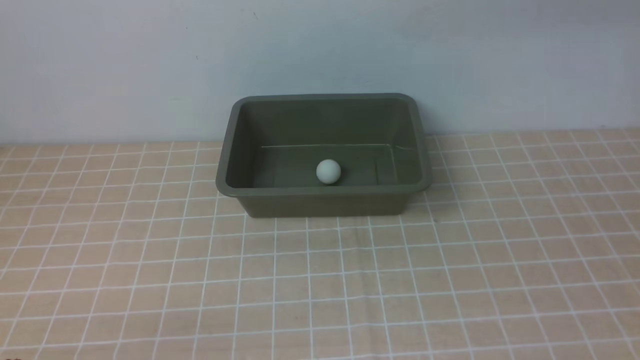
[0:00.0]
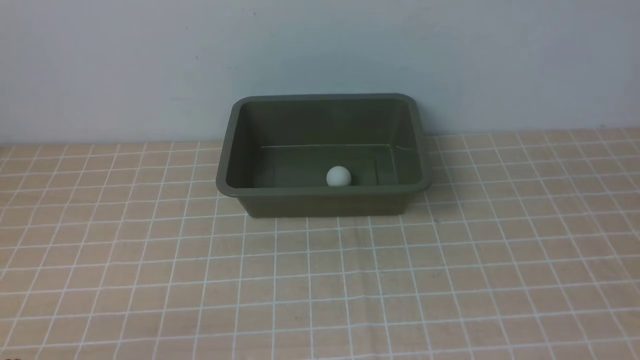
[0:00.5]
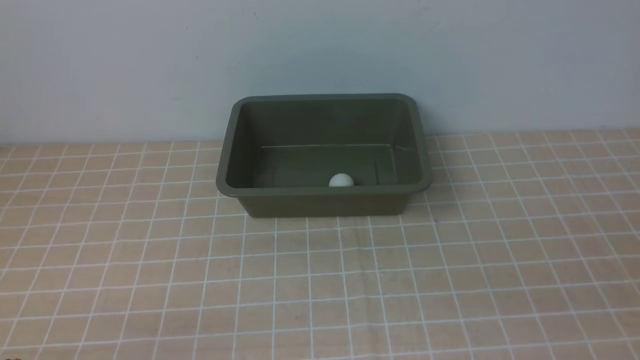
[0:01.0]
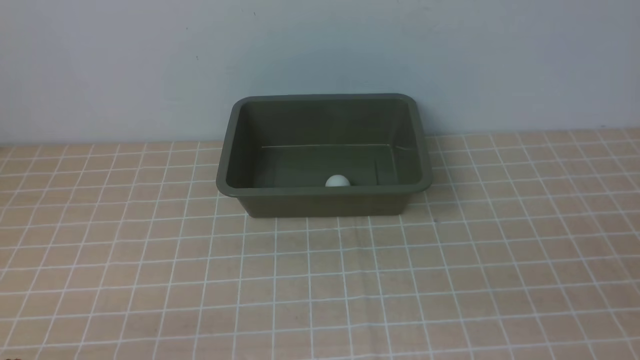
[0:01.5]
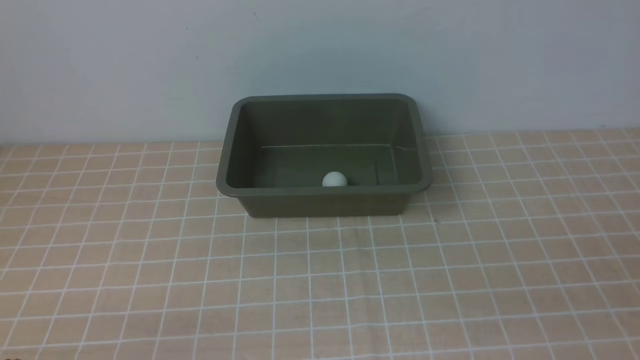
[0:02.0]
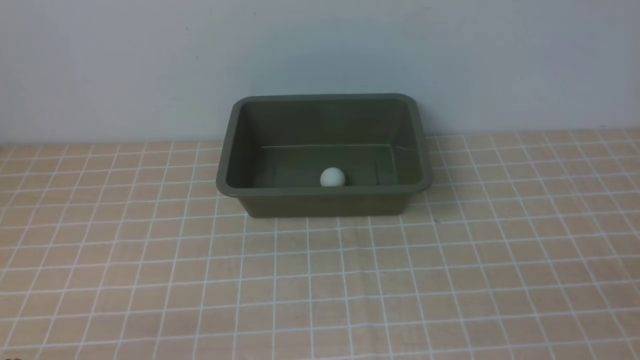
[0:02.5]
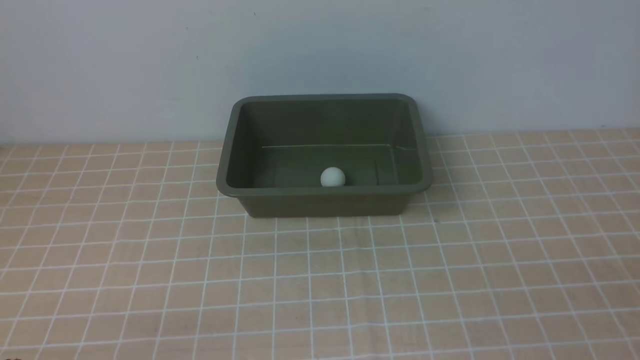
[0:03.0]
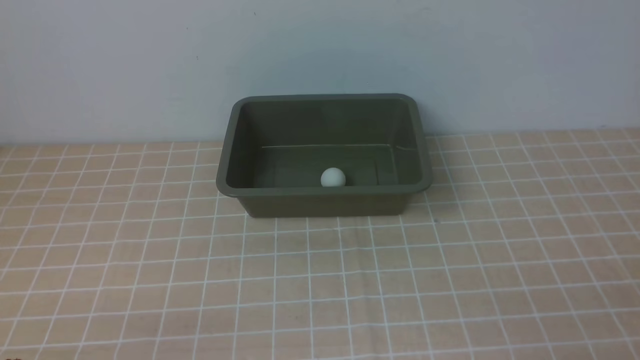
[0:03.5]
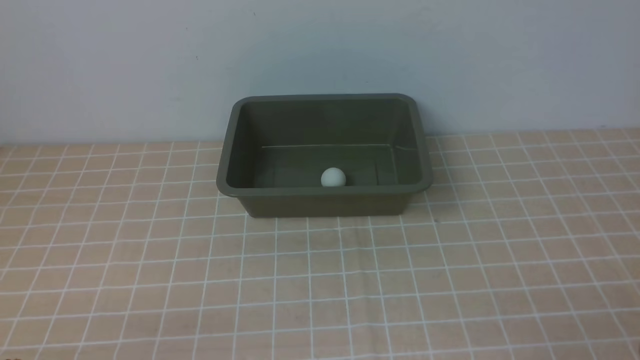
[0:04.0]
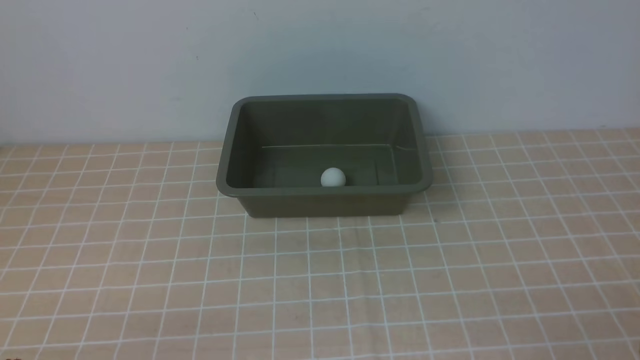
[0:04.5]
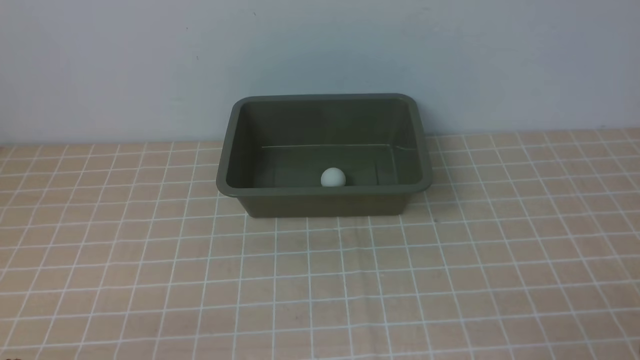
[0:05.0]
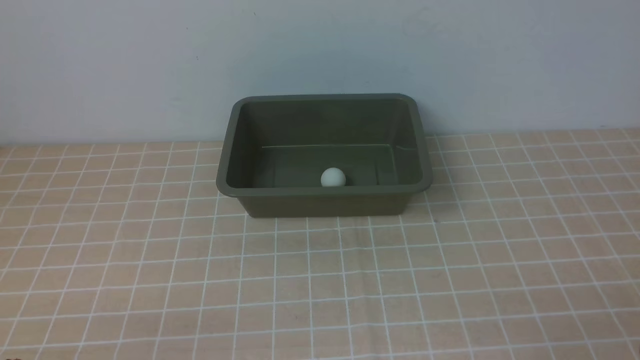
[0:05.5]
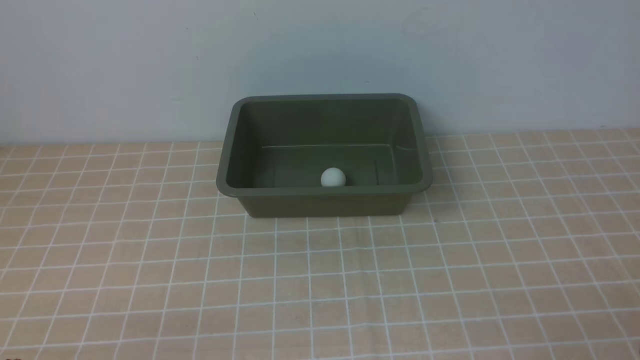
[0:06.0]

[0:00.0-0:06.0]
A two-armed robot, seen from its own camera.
0:04.0 to 0:06.0: Neither gripper changes place.
